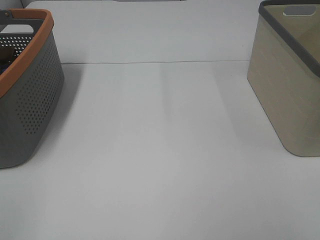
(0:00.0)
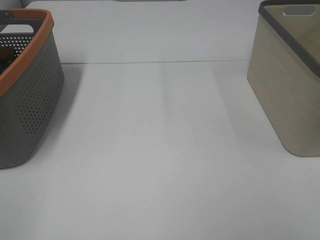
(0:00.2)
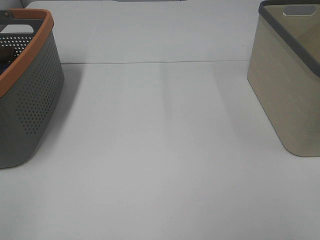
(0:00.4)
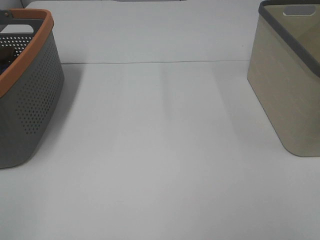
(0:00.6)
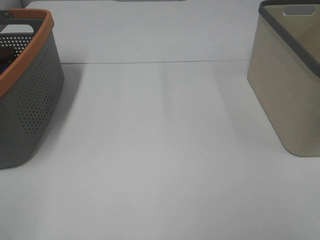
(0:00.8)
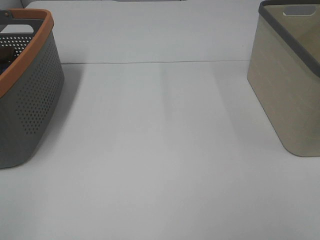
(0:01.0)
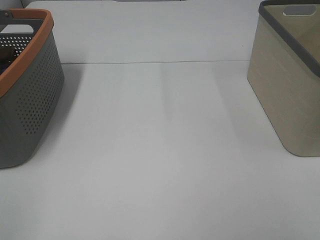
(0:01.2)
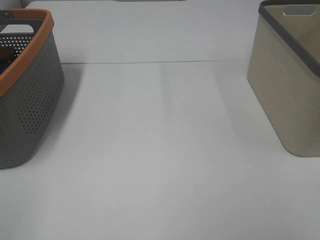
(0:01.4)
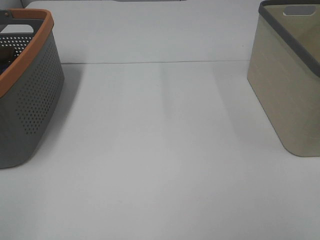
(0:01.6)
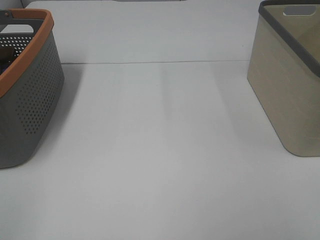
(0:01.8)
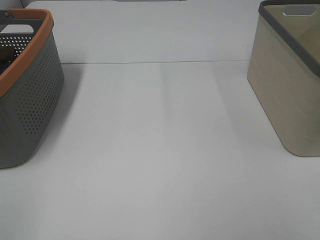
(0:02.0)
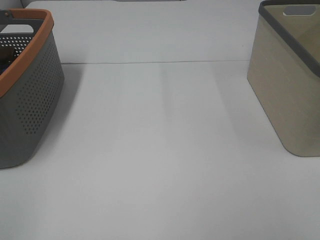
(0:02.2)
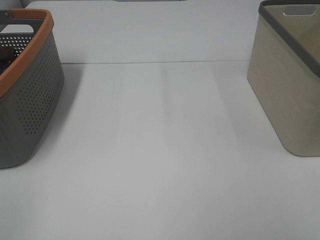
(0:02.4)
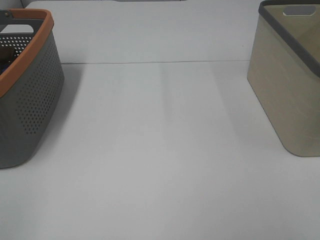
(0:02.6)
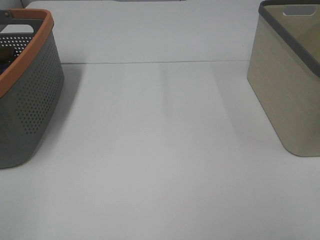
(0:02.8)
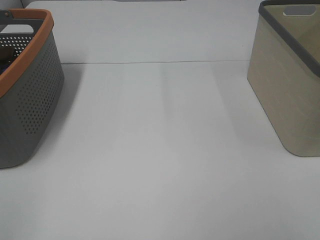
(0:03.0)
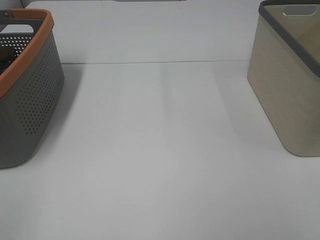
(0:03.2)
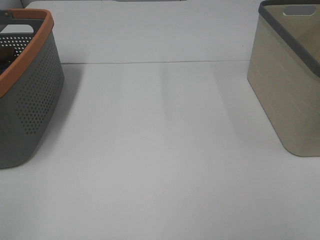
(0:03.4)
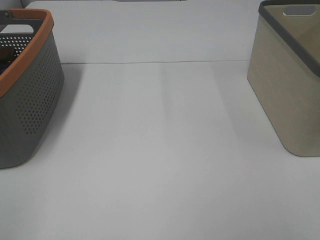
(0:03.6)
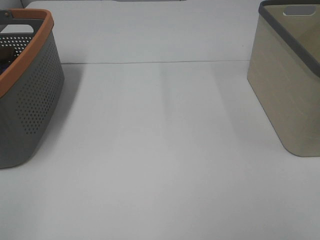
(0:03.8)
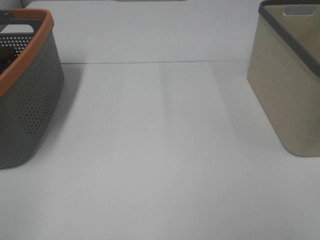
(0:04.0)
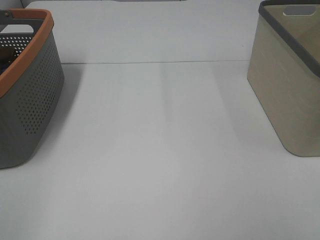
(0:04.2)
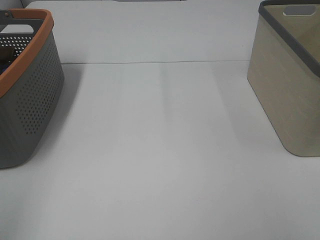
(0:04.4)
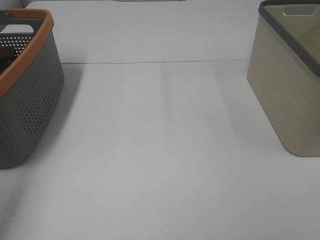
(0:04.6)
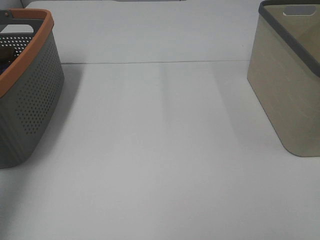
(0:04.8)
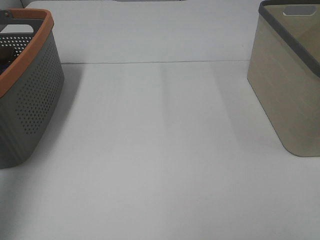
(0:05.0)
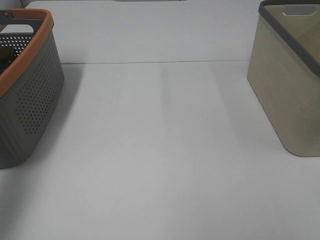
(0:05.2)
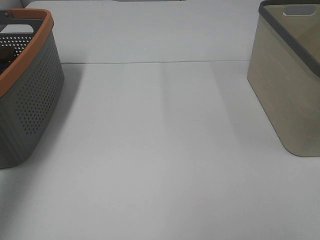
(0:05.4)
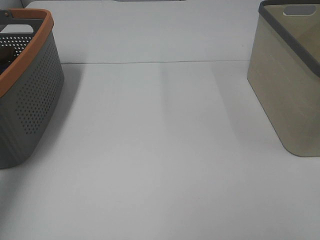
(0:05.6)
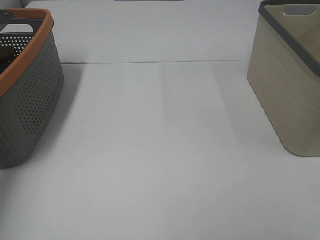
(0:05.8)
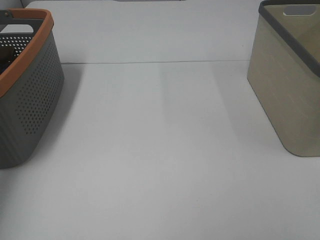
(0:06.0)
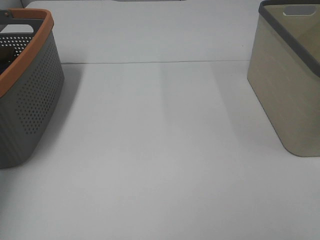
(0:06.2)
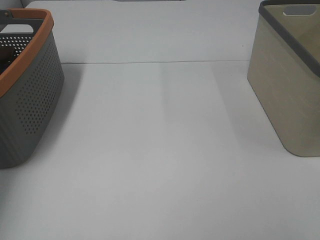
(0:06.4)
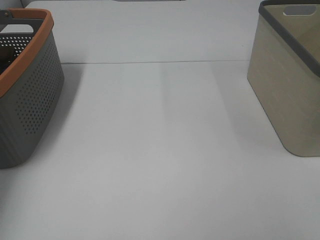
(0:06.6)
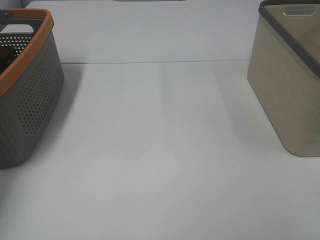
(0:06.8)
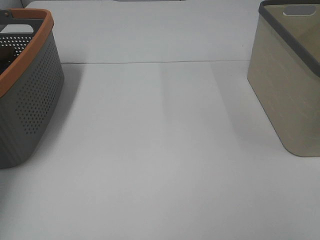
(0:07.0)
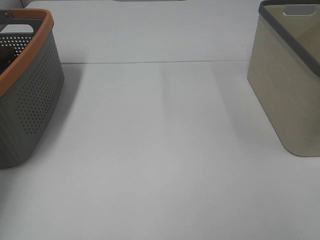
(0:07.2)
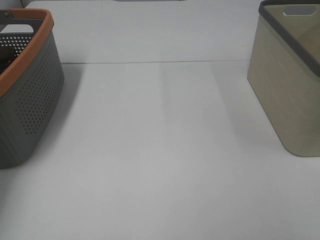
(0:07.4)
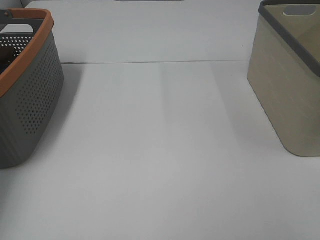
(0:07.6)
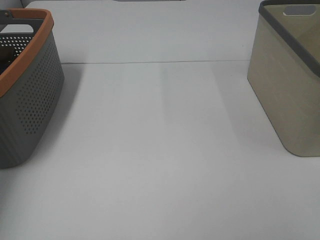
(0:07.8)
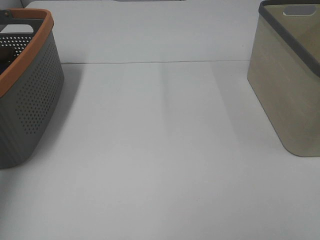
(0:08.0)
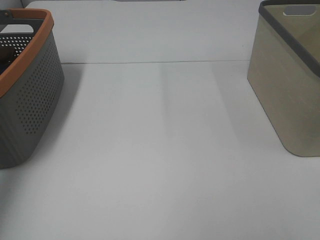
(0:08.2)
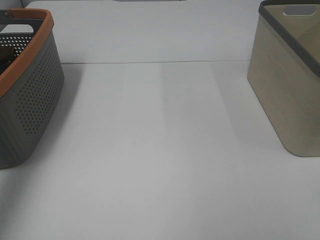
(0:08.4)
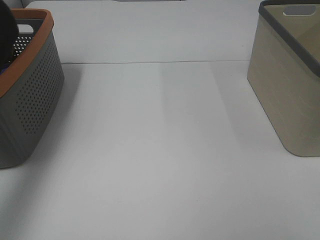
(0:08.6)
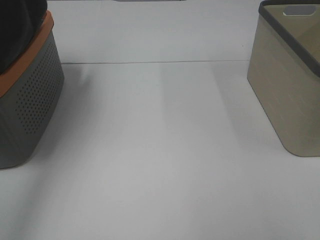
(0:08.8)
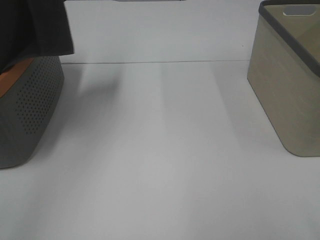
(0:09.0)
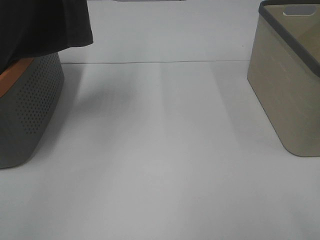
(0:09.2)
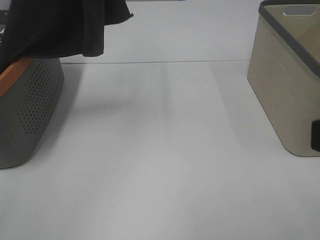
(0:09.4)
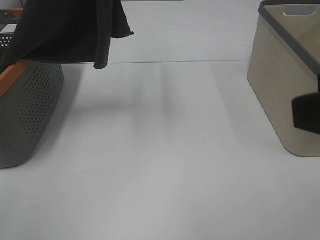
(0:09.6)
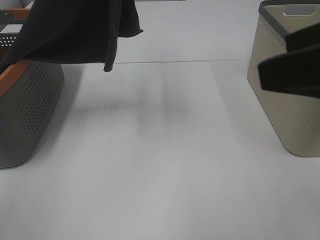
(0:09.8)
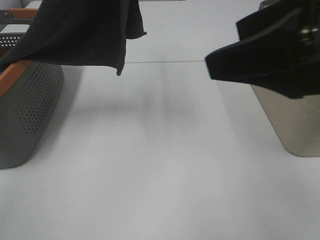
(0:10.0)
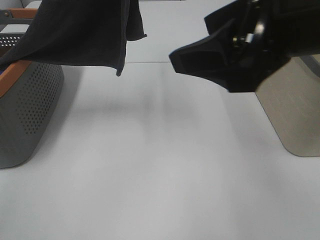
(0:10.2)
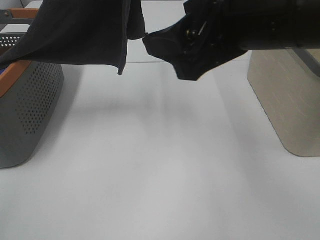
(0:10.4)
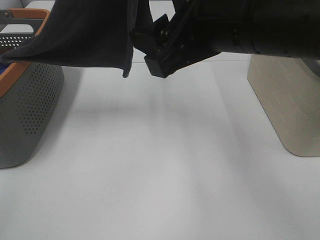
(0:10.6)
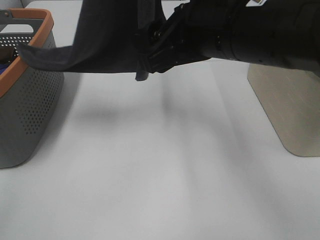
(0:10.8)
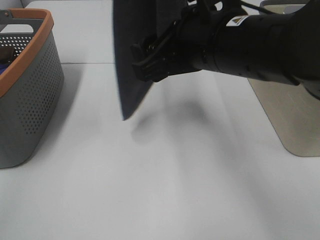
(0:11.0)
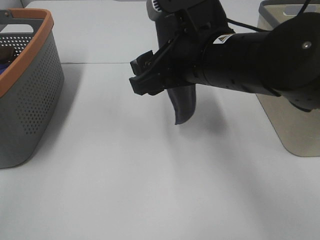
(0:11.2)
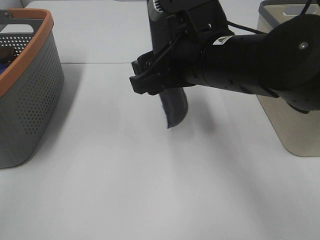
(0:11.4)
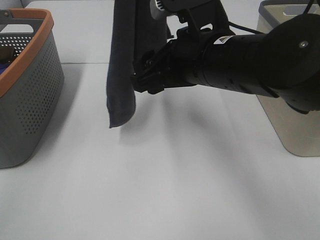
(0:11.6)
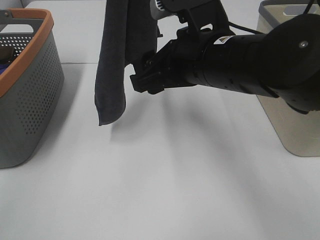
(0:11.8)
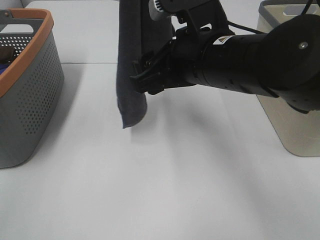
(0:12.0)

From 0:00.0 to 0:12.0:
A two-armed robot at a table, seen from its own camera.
Task of the whole recording: Remove the towel and place it.
From 0:00.0 to 0:03.0: Neither gripper changes place.
From 0:04.4 to 0:06.0: The left gripper moves forward, about 35 cm.
From 0:07.6 to 0:09.0: The left gripper goes some 35 cm upward and to the right.
From 0:09.0 to 0:10.4: The right gripper goes about 25 cm forward and to the left; the left gripper travels to the right by about 10 cm.
From 0:10.4 to 0:12.0: The right gripper travels downward by approximately 5 cm.

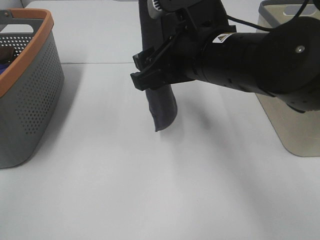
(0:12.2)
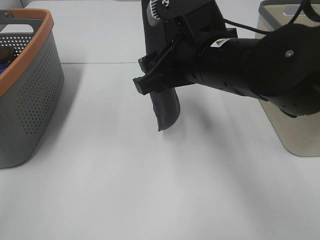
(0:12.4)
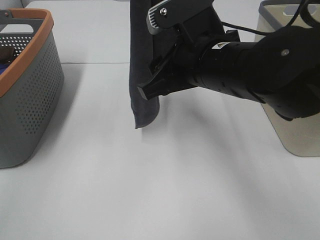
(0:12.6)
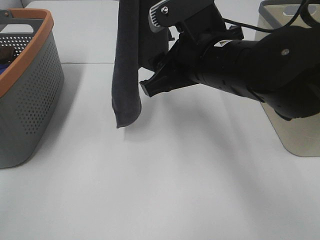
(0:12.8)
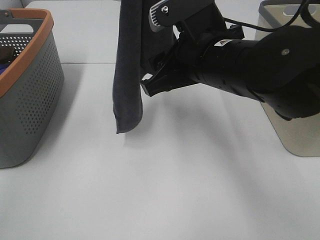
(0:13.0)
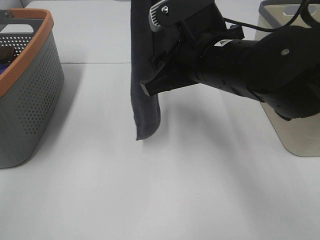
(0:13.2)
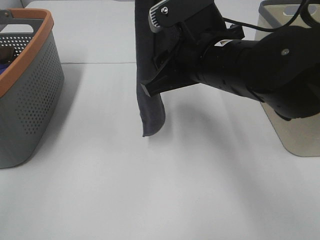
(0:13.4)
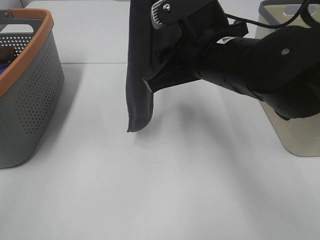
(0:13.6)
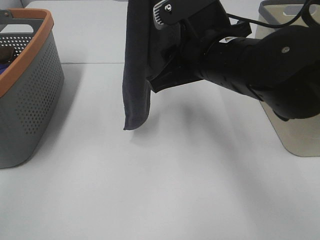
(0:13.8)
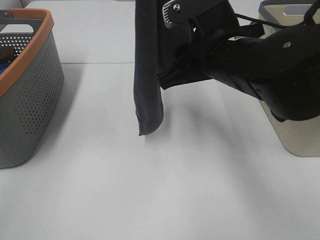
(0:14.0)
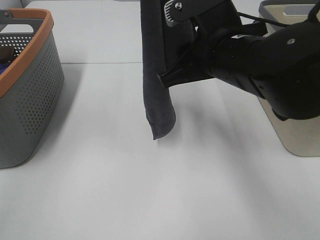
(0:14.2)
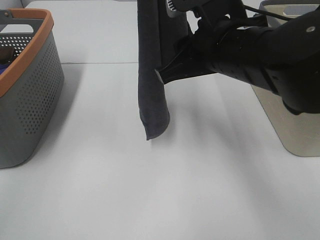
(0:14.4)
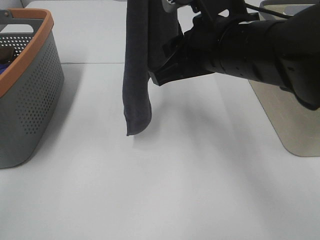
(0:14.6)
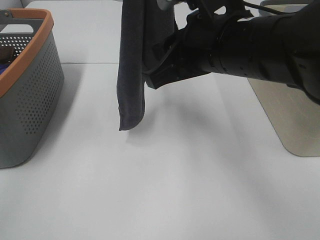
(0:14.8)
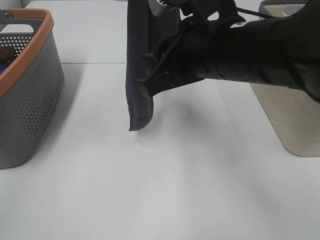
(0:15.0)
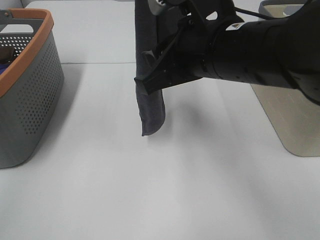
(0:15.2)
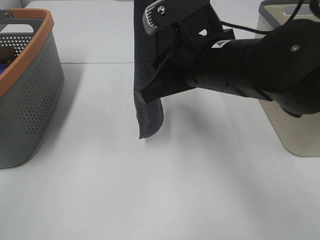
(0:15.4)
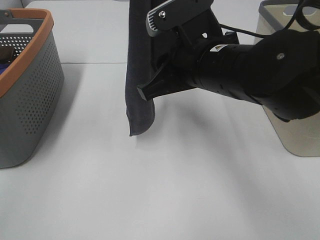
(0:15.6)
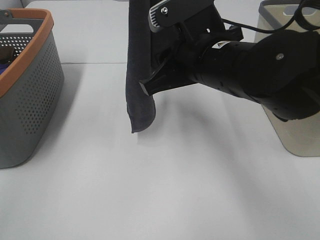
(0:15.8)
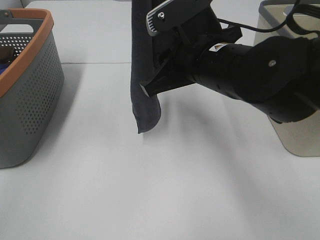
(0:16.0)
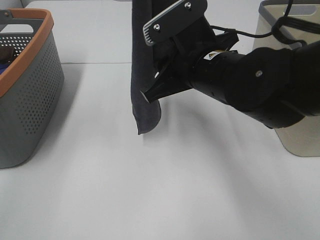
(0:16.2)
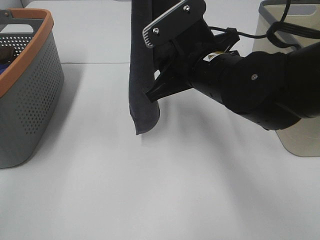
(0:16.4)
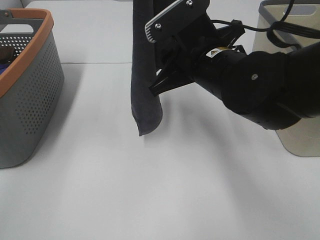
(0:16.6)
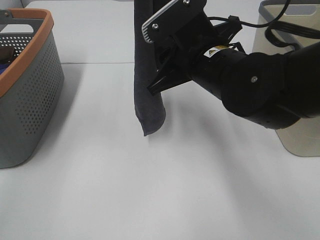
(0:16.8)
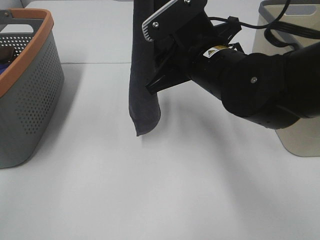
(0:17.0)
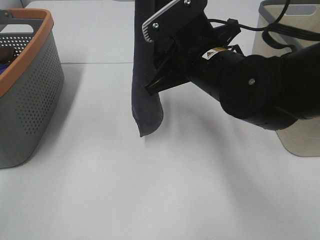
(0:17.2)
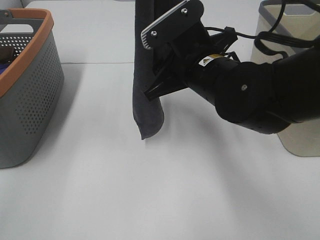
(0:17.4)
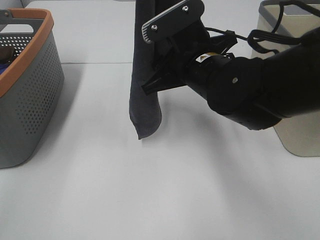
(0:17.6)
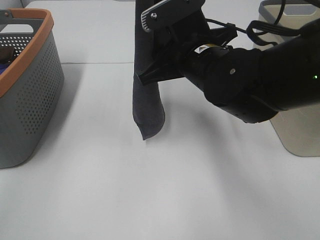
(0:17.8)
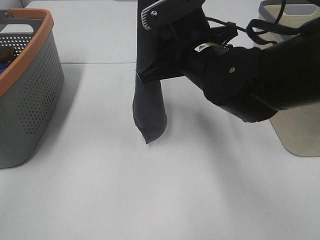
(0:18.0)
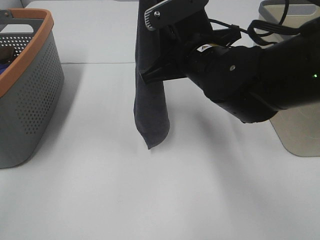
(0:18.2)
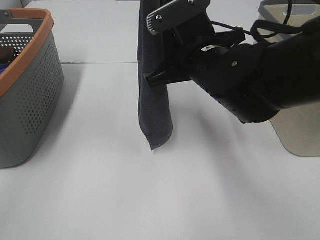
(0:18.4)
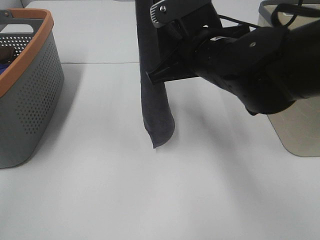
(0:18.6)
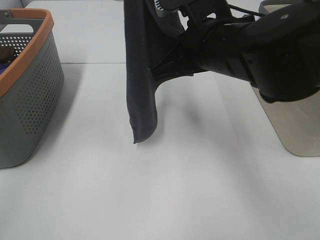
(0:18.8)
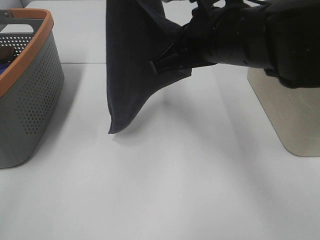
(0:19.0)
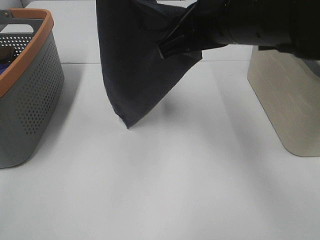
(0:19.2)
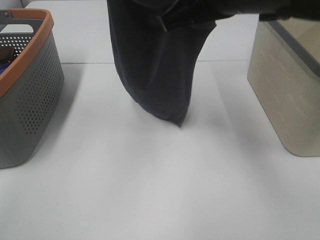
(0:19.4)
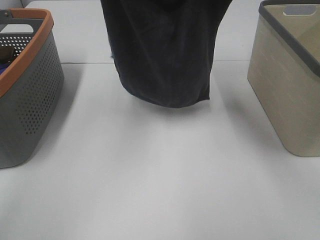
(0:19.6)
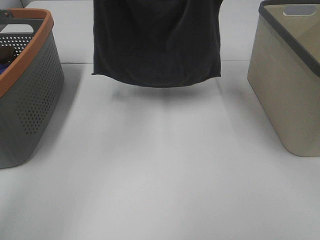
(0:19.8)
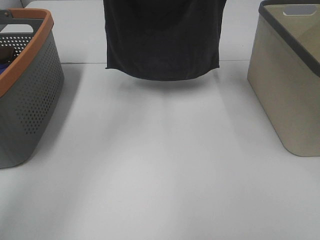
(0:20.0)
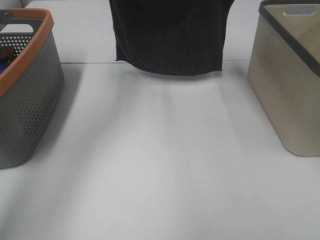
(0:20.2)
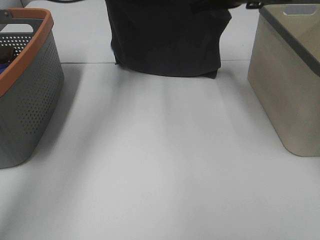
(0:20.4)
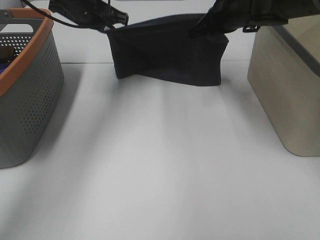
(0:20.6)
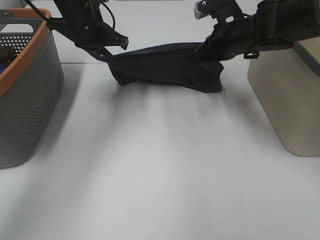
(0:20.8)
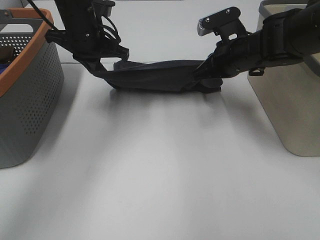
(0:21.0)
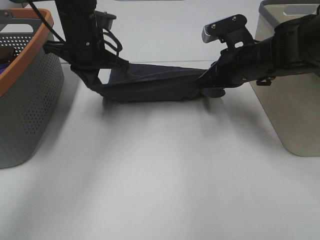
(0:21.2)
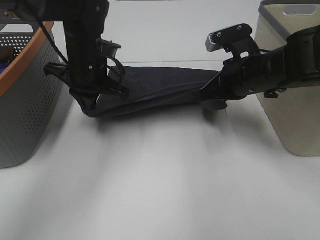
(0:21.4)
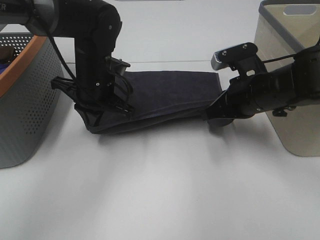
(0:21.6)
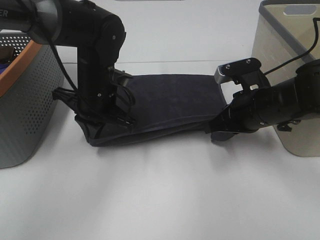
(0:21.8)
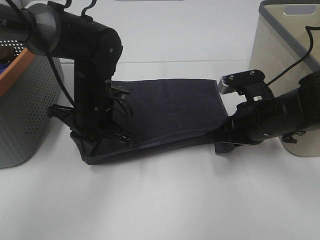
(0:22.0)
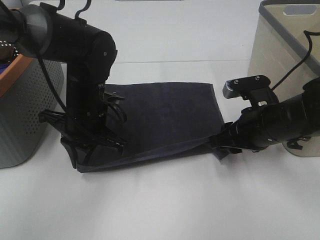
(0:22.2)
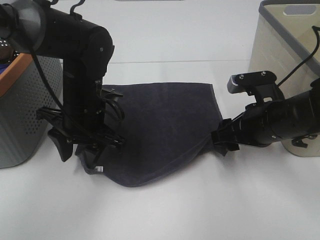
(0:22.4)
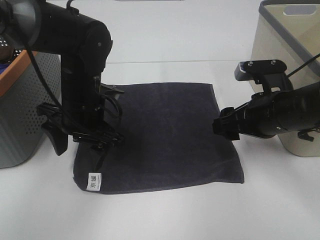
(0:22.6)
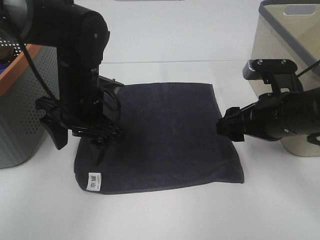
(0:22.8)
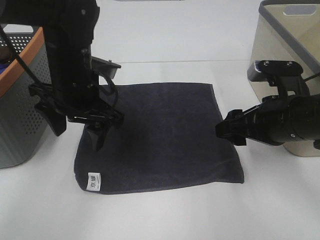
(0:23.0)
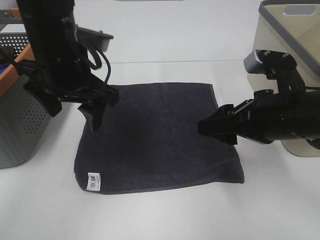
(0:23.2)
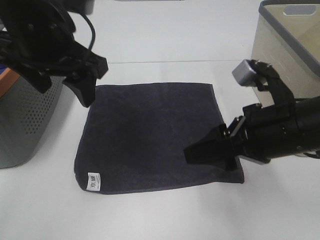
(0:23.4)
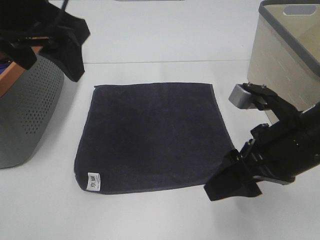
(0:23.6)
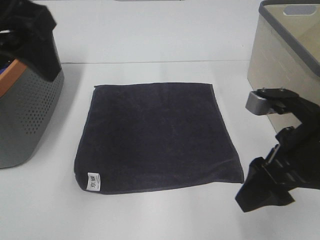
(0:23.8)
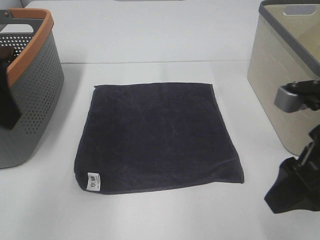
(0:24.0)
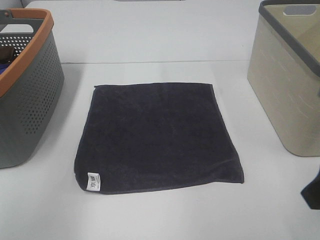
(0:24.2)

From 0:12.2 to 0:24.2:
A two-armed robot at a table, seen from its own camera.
Task of the whole recording: Remove the towel and place it.
Step, from 0:12.2 to 0:16.0: Right hand: grab a corner of the grey towel and straighten it.
Step, from 0:16.2 to 0:18.2: Left hand: spread the grey towel flat on the table.
Step, from 0:16.2 to 0:18.2: Right hand: spread the grey towel flat on the table.
From 0:12.2 to 0:13.8: The right gripper closes its fingers.
From 0:13.8 to 0:15.2: The grippers move only a little.
From 0:16.6 to 0:18.2: The right gripper closes up.
From 0:18.2 to 0:19.8: The left gripper goes approximately 15 cm forward and downward. Meanwhile the right gripper travels upward, to the right and forward by some 15 cm.
From 0:19.8 to 0:21.2: The two grippers go approximately 20 cm downward.
From 0:21.2 to 0:22.6: The right gripper is displaced backward by approximately 10 cm, and opens its fingers. Meanwhile the left gripper heads backward and downward, covering about 10 cm, and opens.
From 0:22.6 to 0:24.2: The right gripper heads backward and upward, covering some 15 cm. Meanwhile the left gripper moves backward, upward and to the left, approximately 30 cm.
